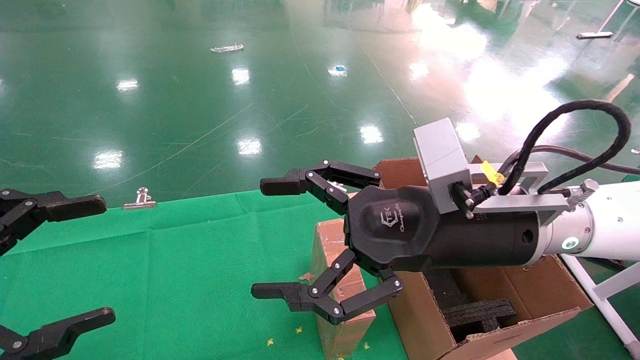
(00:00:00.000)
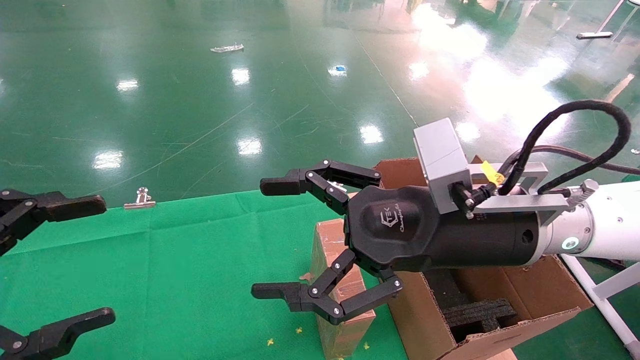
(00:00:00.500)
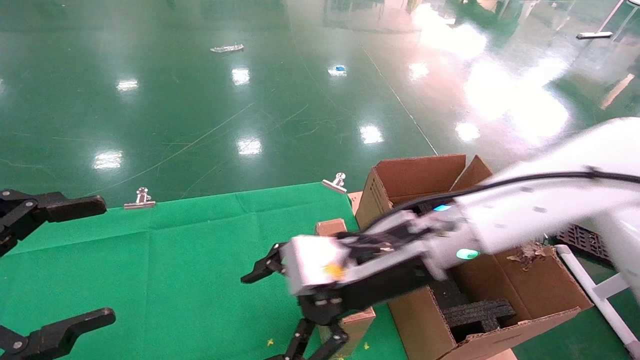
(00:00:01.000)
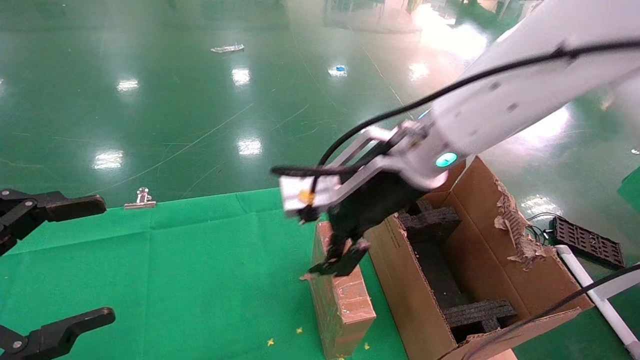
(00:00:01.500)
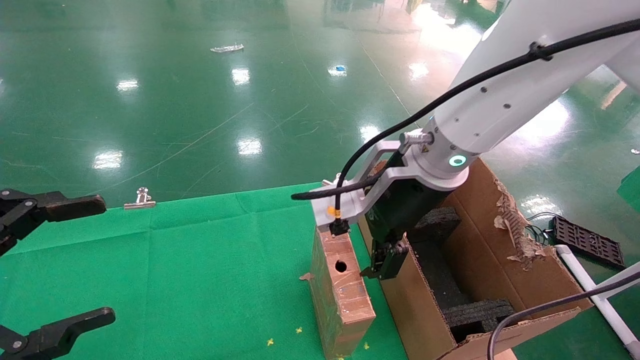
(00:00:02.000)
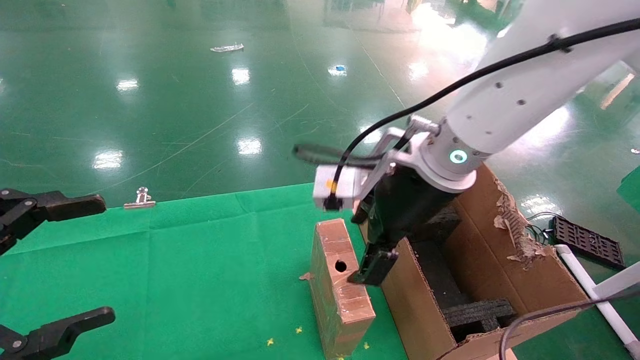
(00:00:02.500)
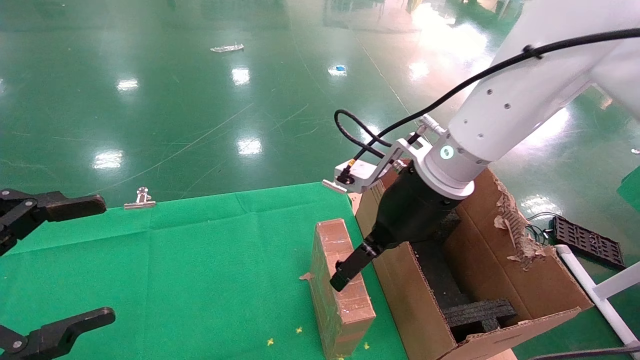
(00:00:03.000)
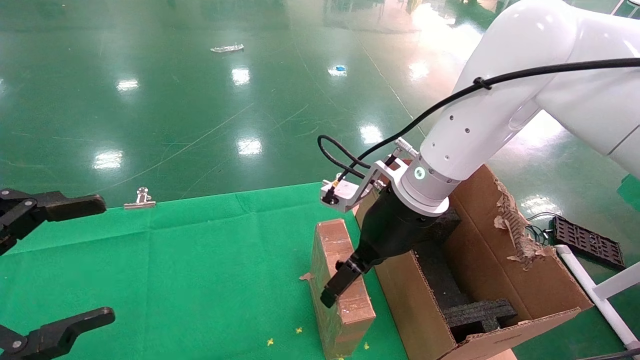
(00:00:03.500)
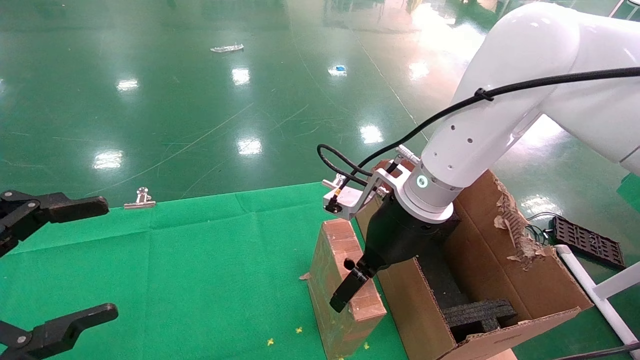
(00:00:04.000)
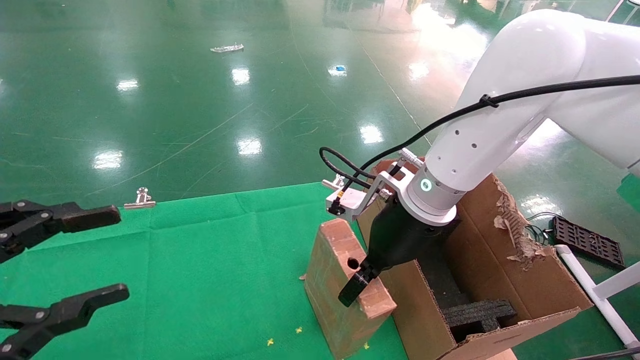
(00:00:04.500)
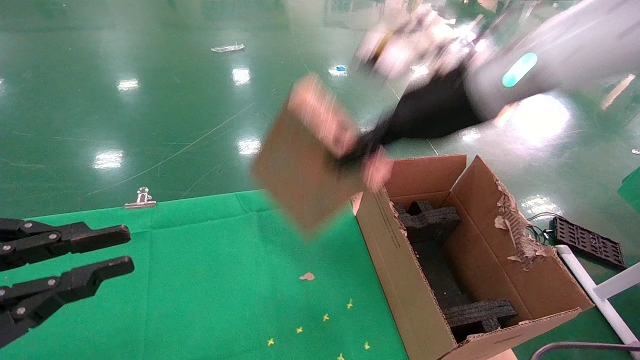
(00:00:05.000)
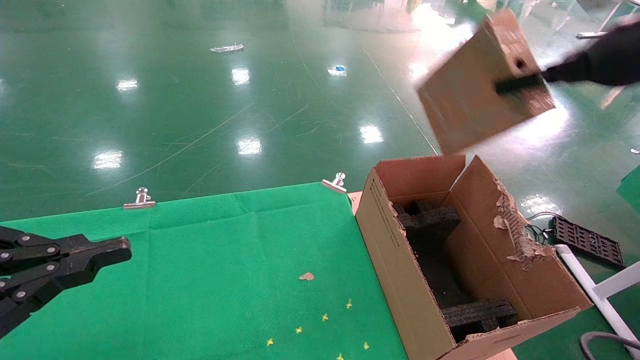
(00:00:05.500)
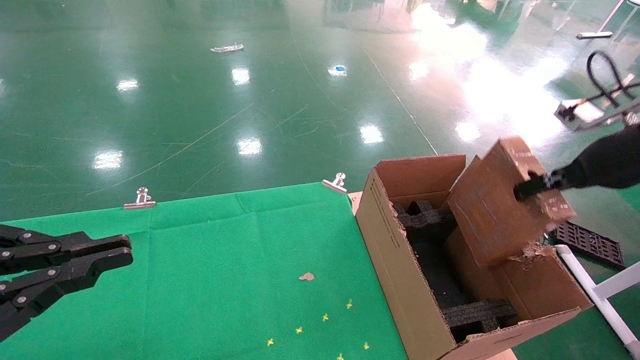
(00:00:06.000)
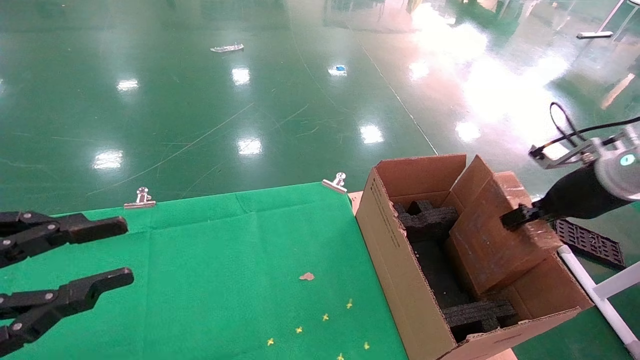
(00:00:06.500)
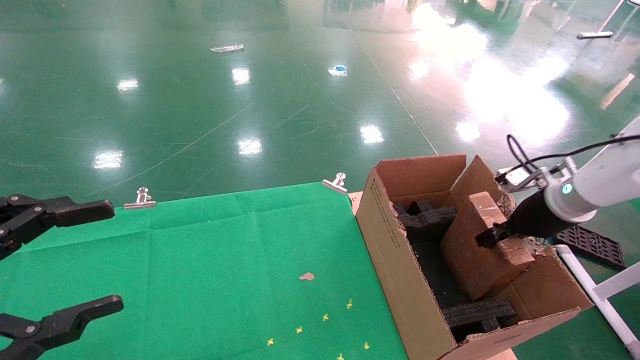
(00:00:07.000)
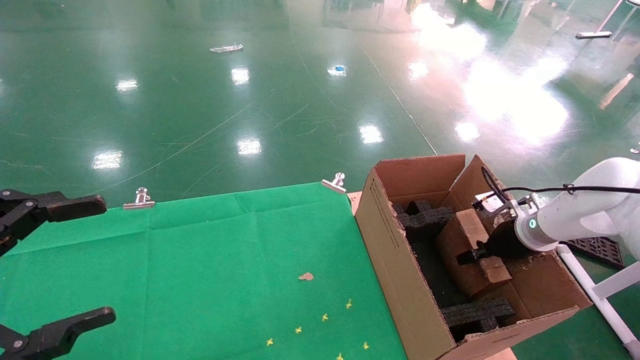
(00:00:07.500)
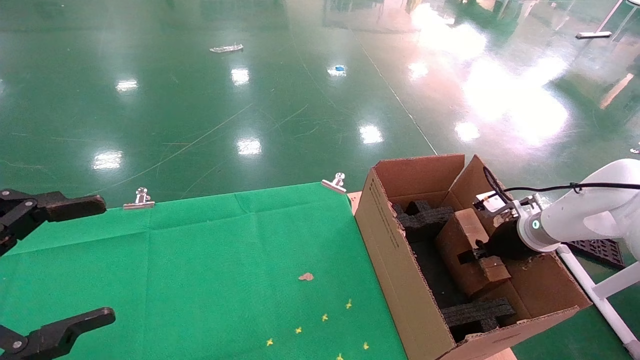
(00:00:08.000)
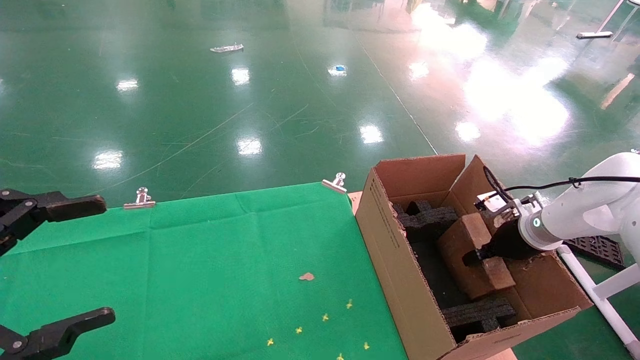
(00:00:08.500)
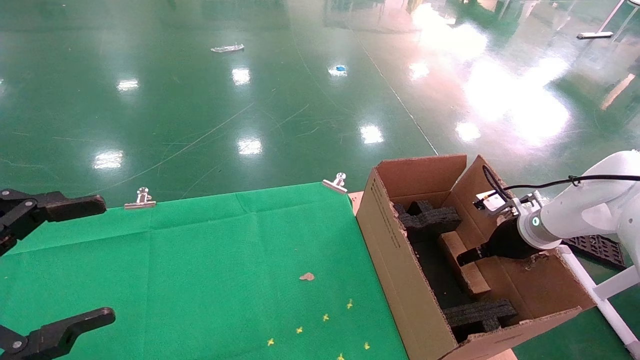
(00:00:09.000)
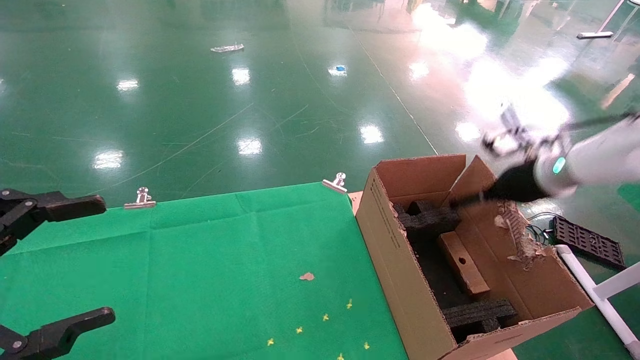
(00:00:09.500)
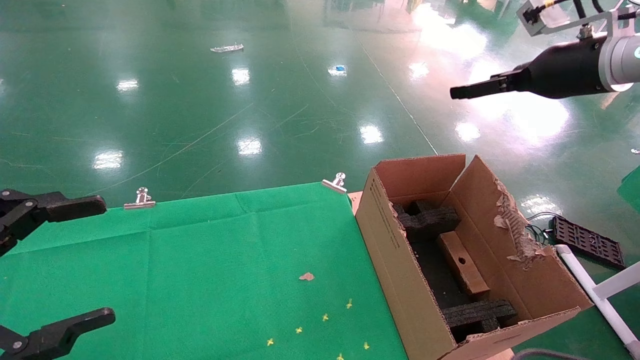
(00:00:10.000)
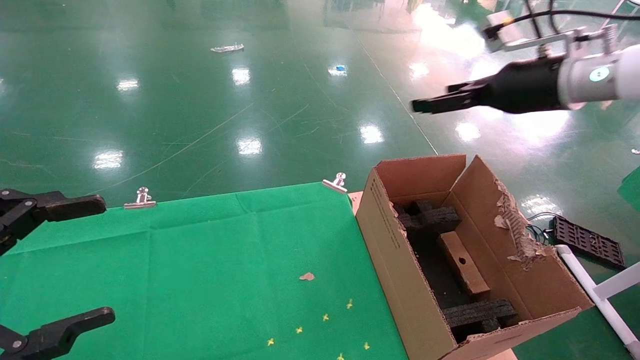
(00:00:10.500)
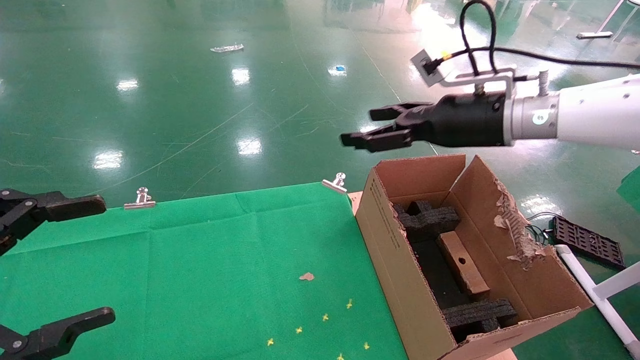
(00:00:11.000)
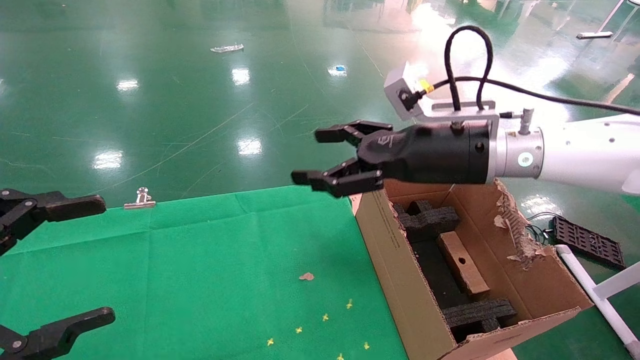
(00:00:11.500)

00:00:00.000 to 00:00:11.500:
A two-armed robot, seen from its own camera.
Task of the whole recording: using a robotic arm to pick up a cardboard box and palace it the carton.
Step, 00:00:01.000 to 00:00:04.500: Pick up the mouse and the power cord paper box.
Step, 00:00:05.000 to 00:00:09.000: Place the mouse and the power cord paper box into the container.
00:00:00.000 to 00:00:02.000: The right gripper heads forward and to the left, covering some 10 cm.
00:00:02.000 to 00:00:04.000: The right gripper moves downward, approximately 5 cm.
00:00:04.000 to 00:00:06.000: The right gripper moves to the right, roughly 30 cm, and closes its fingers, while the left gripper closes.
00:00:06.000 to 00:00:07.500: The left gripper opens its fingers. Meanwhile the right gripper shifts some 20 cm downward and forward.
00:00:07.500 to 00:00:09.500: The right gripper travels upward by approximately 10 cm, and opens up.
00:00:09.500 to 00:00:11.500: The right gripper goes roughly 20 cm to the left.

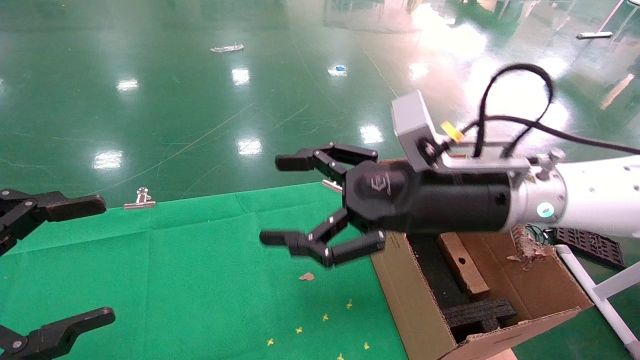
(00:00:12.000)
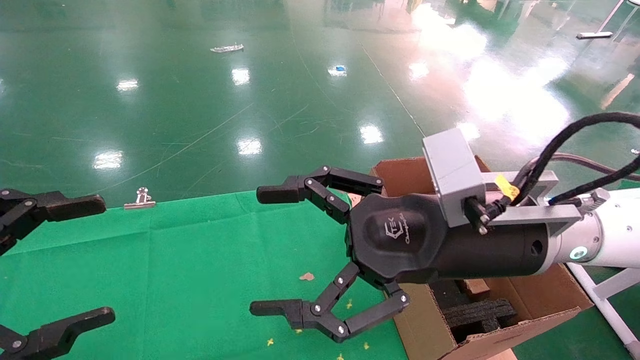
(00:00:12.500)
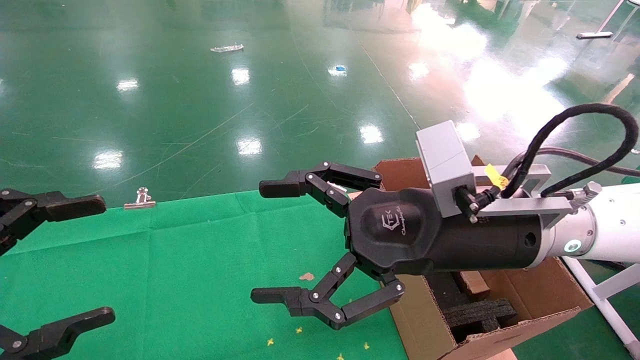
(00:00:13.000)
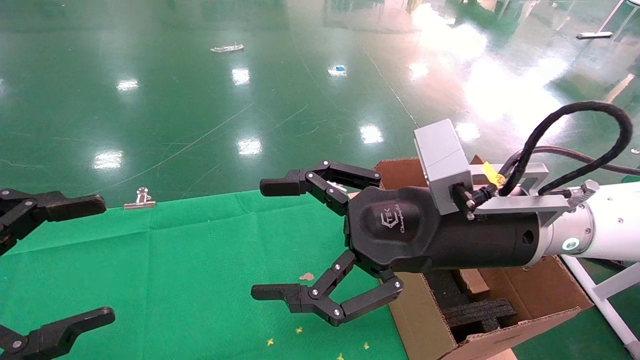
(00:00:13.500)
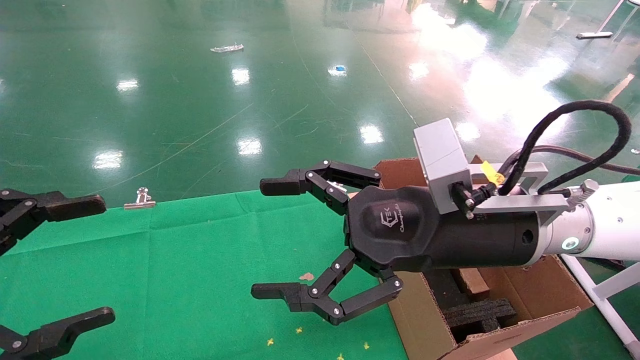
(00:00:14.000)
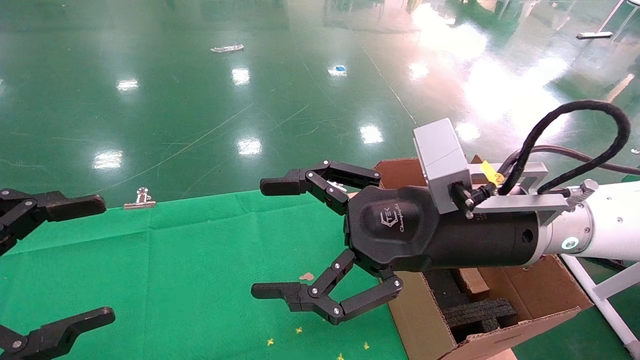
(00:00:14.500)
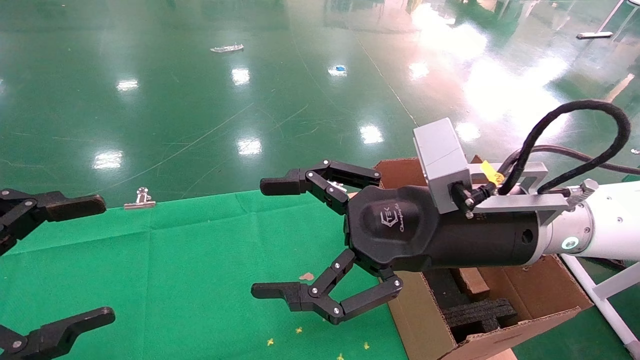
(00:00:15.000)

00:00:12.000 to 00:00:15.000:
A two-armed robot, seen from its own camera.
Task of the whole recording: using a robotic arm to pick up a cardboard box and palace it the carton.
00:00:12.000 to 00:00:13.500: The grippers move only a little.
00:00:13.500 to 00:00:15.000: The two grippers keep their place.
